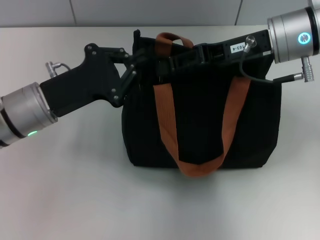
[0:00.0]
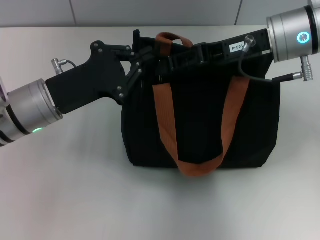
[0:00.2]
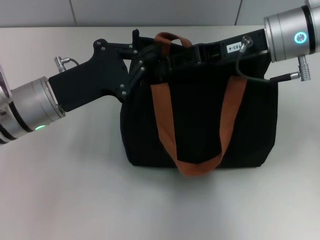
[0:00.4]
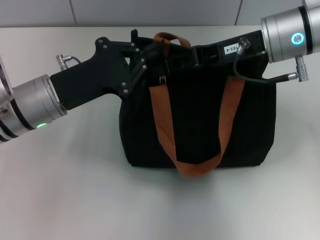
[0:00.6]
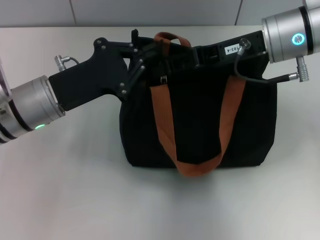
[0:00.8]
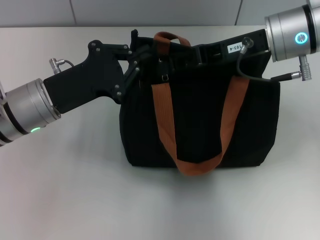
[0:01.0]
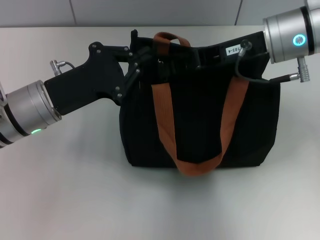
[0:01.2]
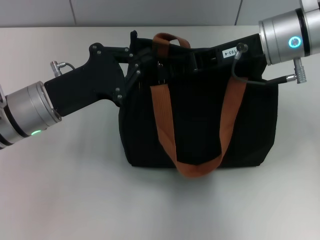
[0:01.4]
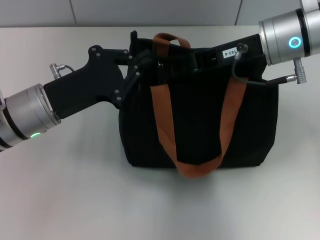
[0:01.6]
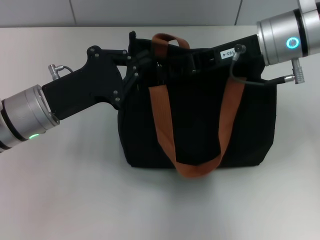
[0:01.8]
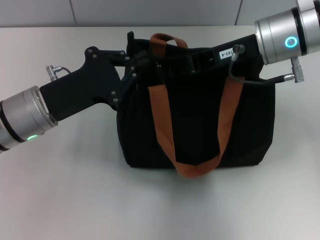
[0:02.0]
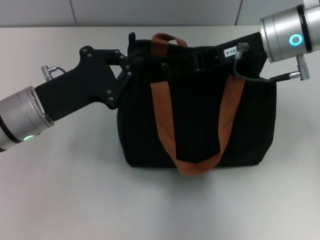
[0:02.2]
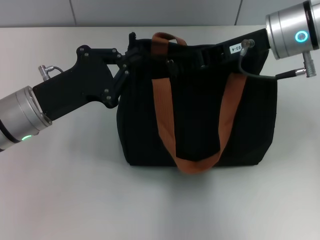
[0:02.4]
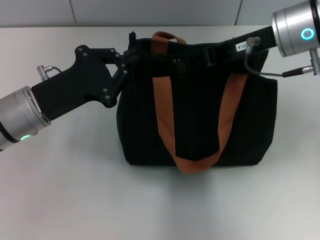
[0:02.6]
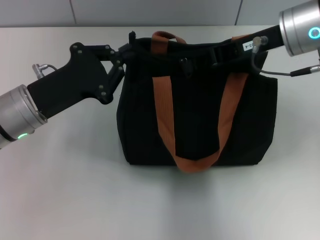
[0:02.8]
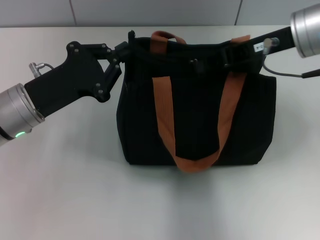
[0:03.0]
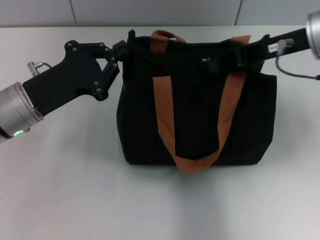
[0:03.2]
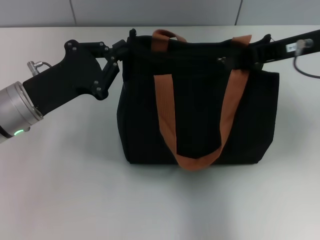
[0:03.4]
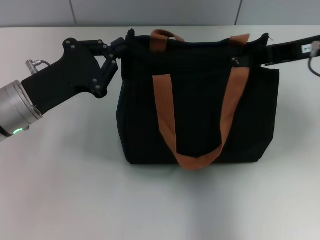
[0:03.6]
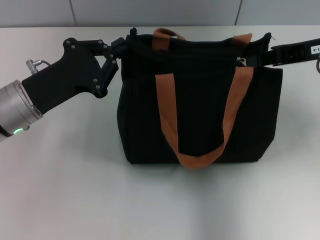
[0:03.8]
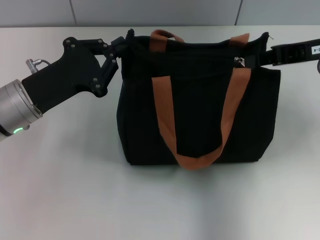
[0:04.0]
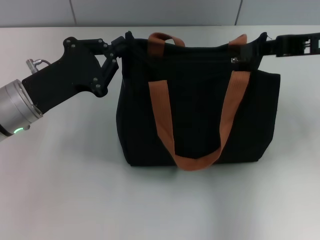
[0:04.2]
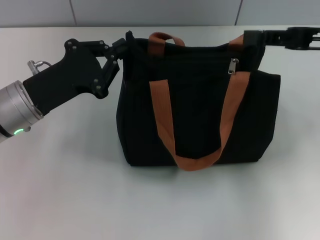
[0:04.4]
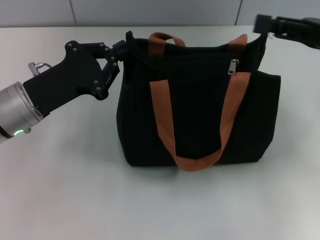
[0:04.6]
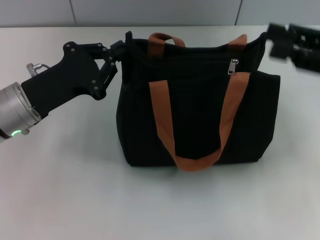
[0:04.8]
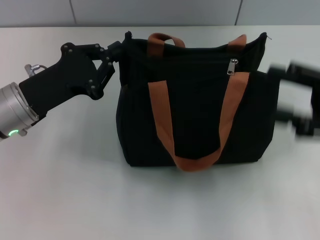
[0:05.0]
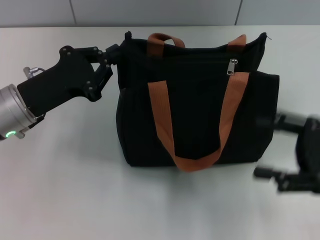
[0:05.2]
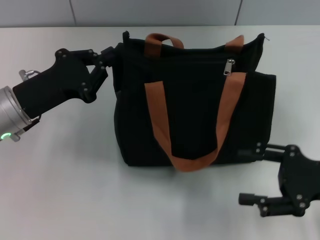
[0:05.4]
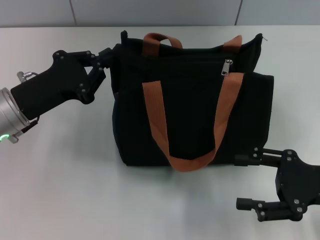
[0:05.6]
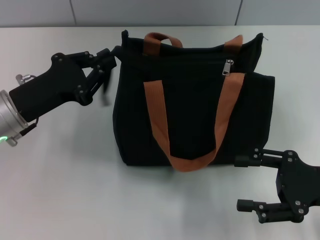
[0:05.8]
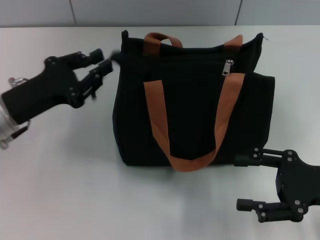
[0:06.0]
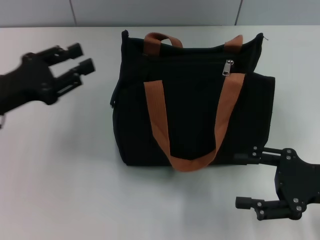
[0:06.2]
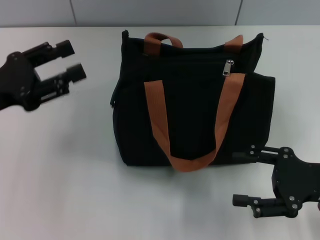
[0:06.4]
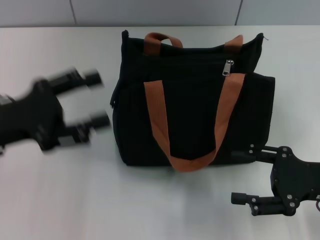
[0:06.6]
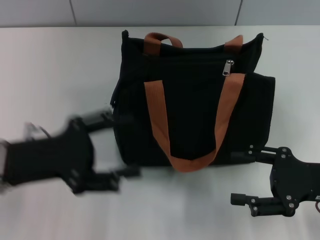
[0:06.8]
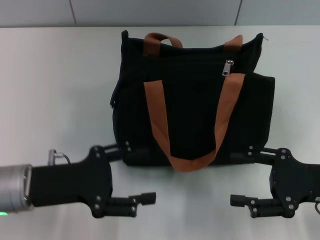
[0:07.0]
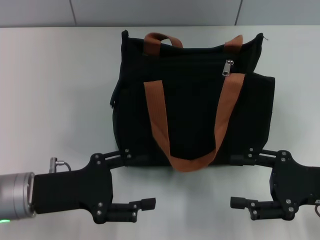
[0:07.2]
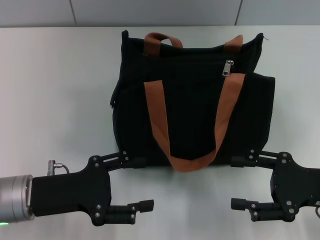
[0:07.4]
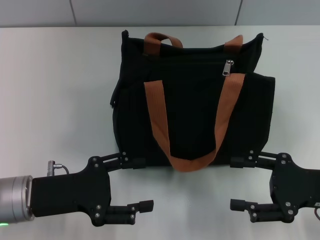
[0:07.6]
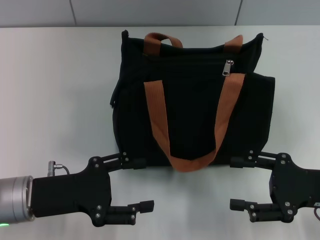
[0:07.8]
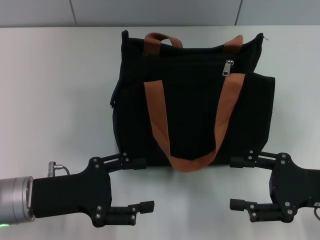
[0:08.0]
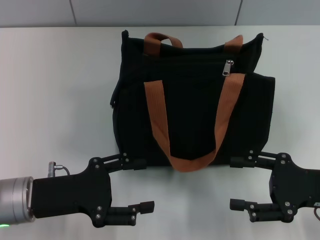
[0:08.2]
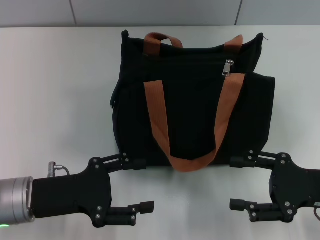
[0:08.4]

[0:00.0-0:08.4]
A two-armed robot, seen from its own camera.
Step, 0:00.0 to 0:04.2: Pull up the zipper with your right hand.
Step, 0:04.4 to 0:06.2: Grab the zipper with your left hand.
0:00.0 to 0:01.4: The right gripper closes.
0:01.4 to 0:02.8: The grippers move only a little.
0:02.8 to 0:04.2: The right gripper heads to the right, covering roughly 10 cm.
0:04.2 to 0:05.6: The right gripper shifts about 20 cm downward and backward, and opens.
0:05.6 to 0:07.0: The left gripper shifts about 5 cm backward, and opens its fingers.
0:07.0 to 0:08.4: There are only small adjustments of the grippers.
